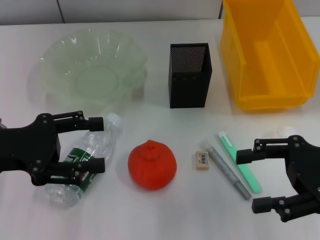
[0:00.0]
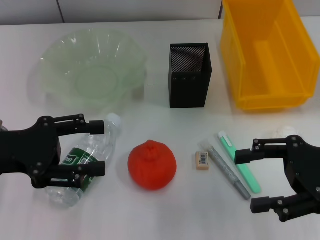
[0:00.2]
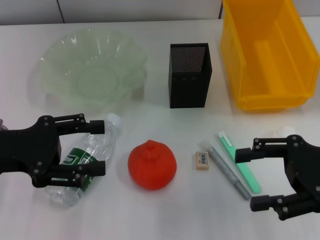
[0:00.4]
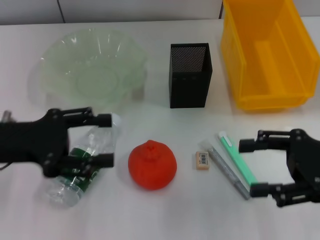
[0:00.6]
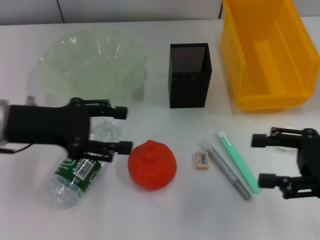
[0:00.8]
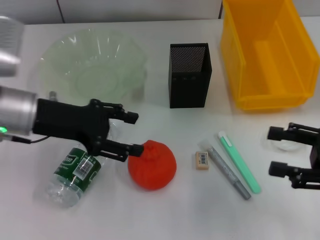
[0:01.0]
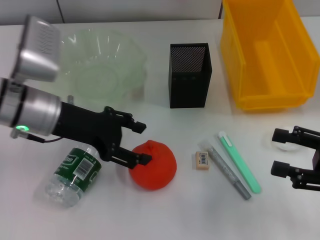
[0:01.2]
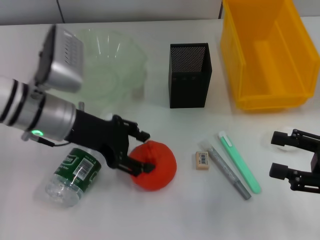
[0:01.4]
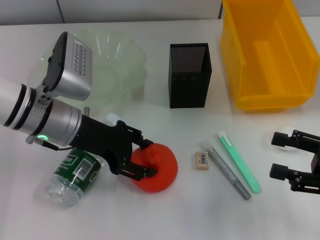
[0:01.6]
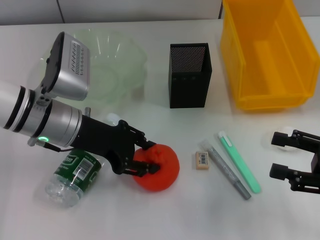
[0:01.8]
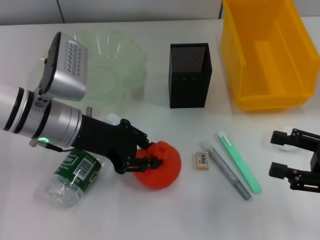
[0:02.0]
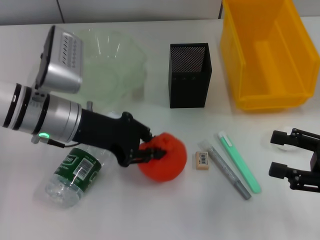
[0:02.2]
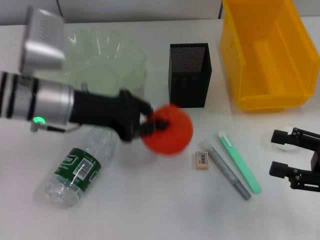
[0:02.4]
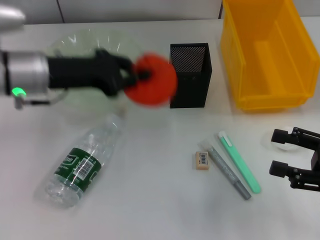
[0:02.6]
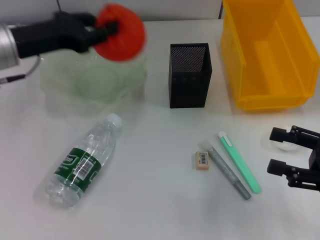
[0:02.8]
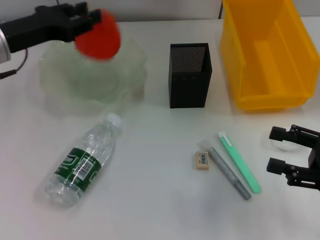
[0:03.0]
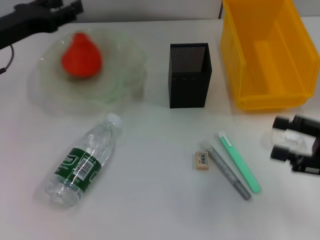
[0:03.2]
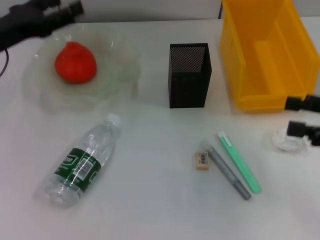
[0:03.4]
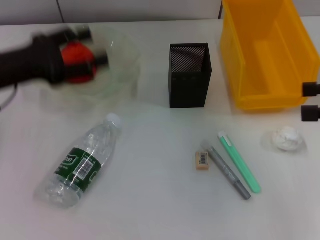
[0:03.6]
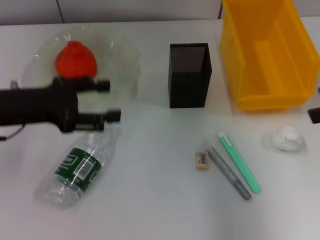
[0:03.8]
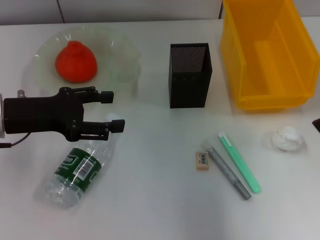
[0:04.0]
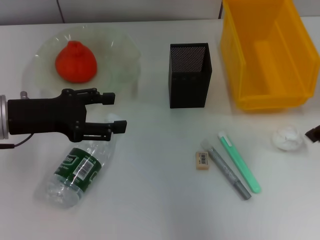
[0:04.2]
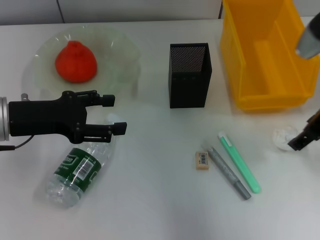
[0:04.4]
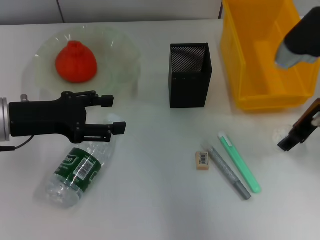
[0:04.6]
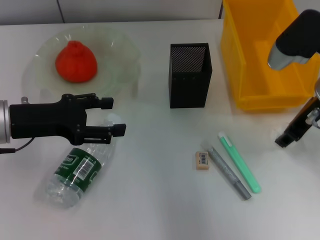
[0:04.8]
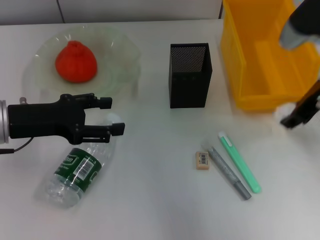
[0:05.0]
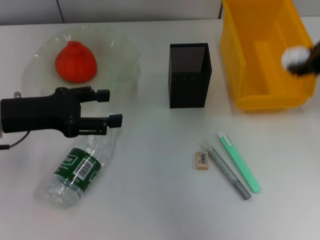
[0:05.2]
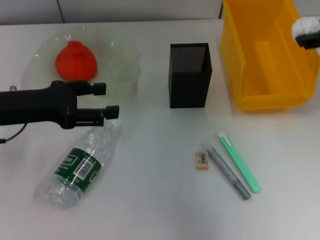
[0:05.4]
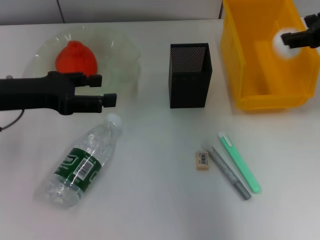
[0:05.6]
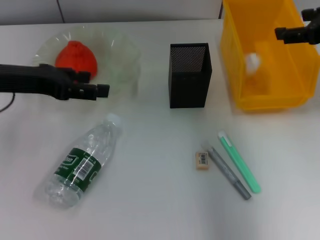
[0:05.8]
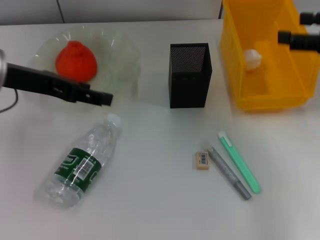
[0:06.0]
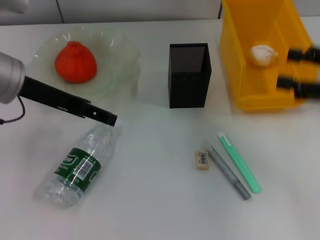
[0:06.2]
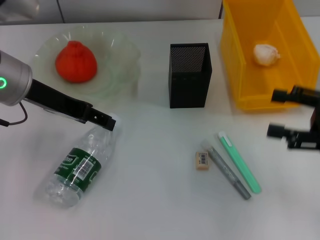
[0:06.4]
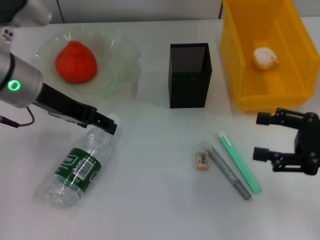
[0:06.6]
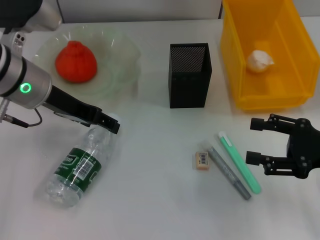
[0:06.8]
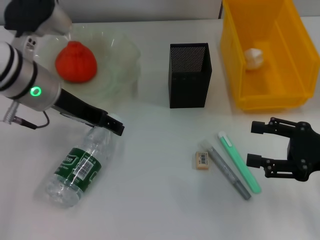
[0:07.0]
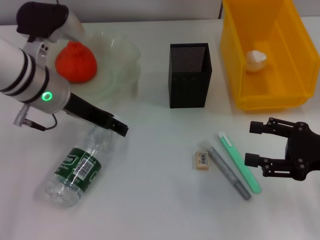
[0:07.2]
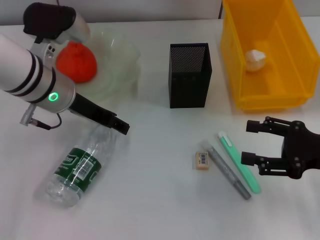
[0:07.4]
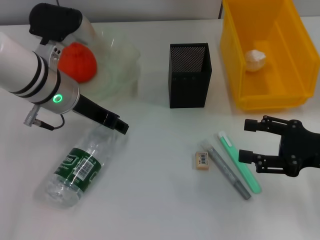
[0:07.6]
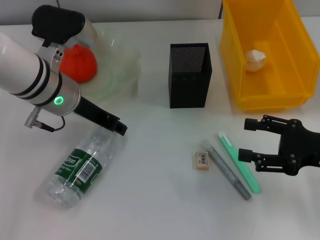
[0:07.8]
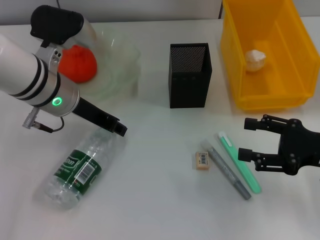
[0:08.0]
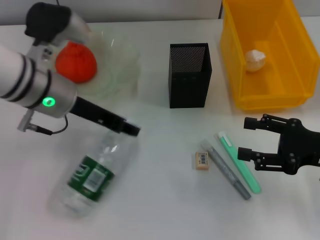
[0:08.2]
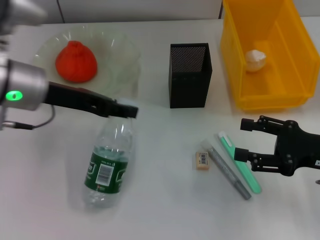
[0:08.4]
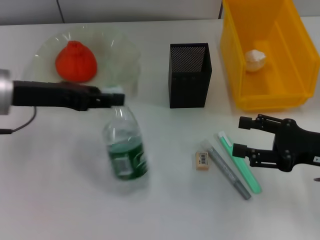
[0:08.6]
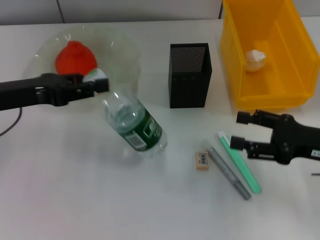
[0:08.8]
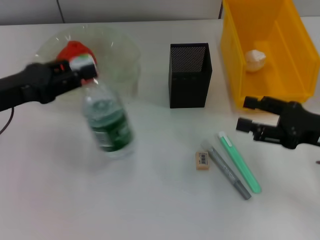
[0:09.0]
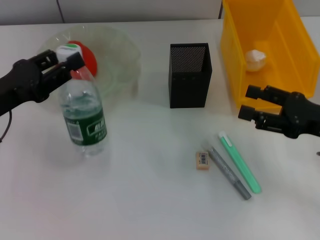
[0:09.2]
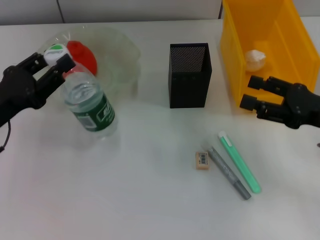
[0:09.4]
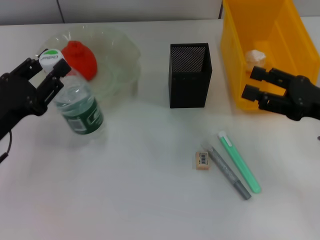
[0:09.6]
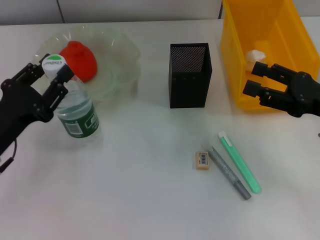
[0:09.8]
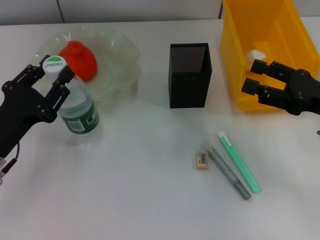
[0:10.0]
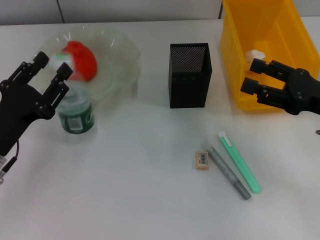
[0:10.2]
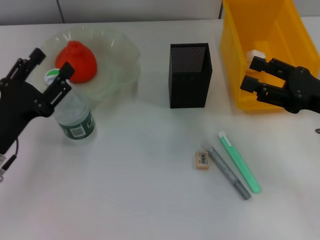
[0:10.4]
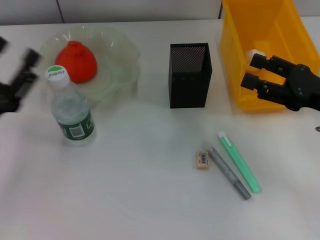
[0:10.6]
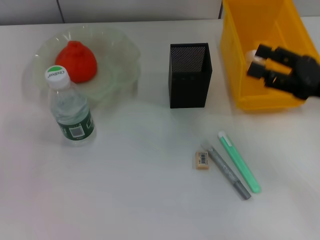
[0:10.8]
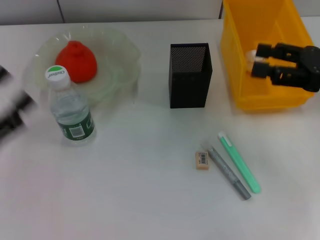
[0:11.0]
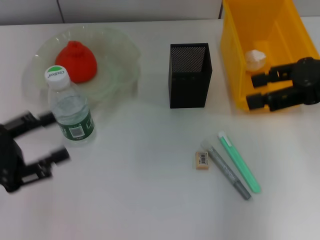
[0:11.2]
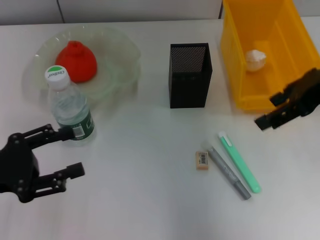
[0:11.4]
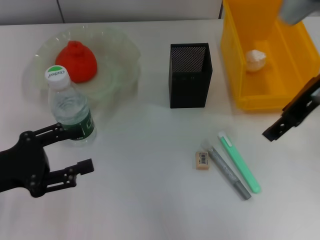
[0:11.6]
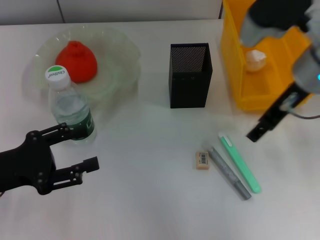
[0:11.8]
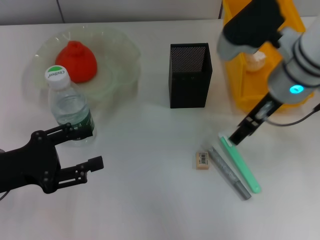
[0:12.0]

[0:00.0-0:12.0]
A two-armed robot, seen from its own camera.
Step, 0:00.0 to 0:01.8: Grab the orange with the left hand.
Step, 0:02.2 to 0:03.0: Place the orange into the fruit bowl with the left hand.
Step, 0:03.2 to 0:04.6: Grab the paper ball with the right hand.
Step, 0:04.8 to 0:05.6: Place the paper ball into the trash can with the right hand.
Step, 0:05.8 to 0:07.8: Grab the water bottle with the left hand.
Step, 0:08.0 to 0:10.2: Place the water bottle on the table with the left hand.
0:00.0 to 0:01.6: The right gripper ends up about 5 cm from where it was, while the left gripper heads to the right and forward, covering roughly 15 cm.
0:01.6 to 0:03.0: The left gripper travels to the left by approximately 10 cm, and closes its fingers.
0:03.0 to 0:04.4: The left gripper goes about 5 cm backward, and opens up. The right gripper goes some 20 cm forward, upward and to the left.
0:04.4 to 0:06.0: The right gripper goes some 10 cm to the right, reaches about 10 cm upward, then returns, and closes and opens again; the left gripper is displaced upward by some 10 cm.
0:06.0 to 0:07.6: The left gripper goes some 10 cm to the right and downward; the right gripper moves downward and backward, some 15 cm.
0:07.6 to 0:09.0: The left gripper is displaced to the left and backward by some 15 cm, and closes its fingers.
0:09.0 to 0:10.4: The left gripper goes some 10 cm downward and backward.
0:10.4 to 0:12.0: The right gripper moves to the left, upward and forward, some 15 cm.

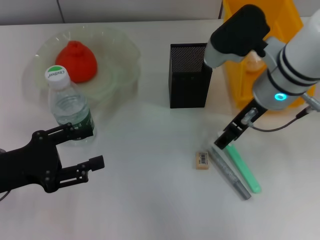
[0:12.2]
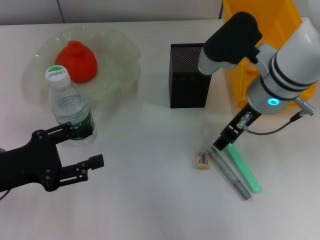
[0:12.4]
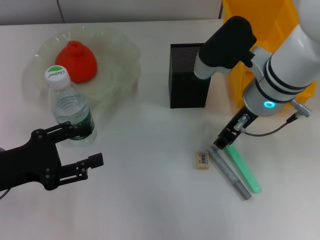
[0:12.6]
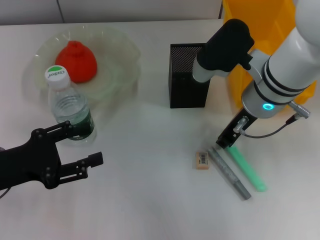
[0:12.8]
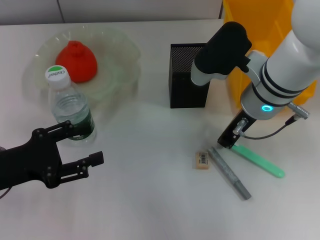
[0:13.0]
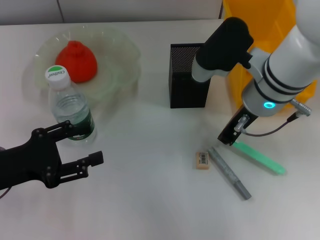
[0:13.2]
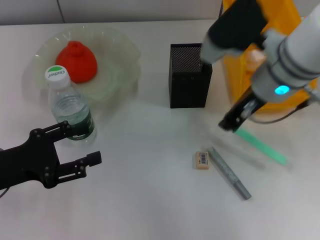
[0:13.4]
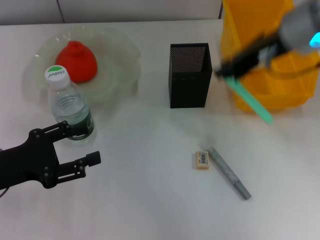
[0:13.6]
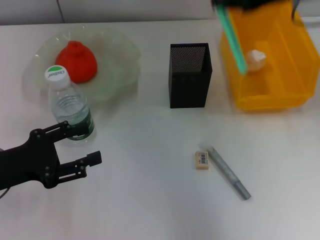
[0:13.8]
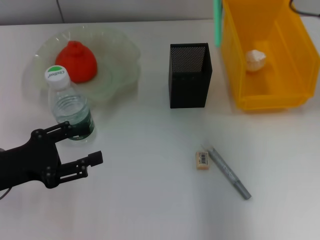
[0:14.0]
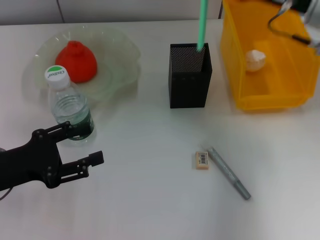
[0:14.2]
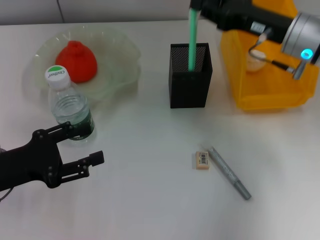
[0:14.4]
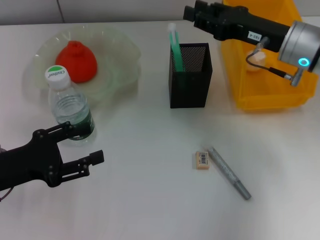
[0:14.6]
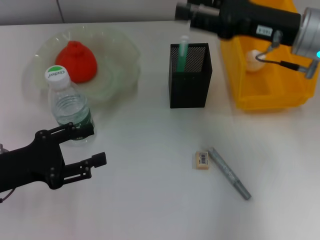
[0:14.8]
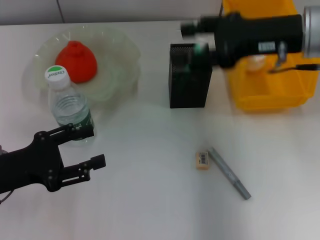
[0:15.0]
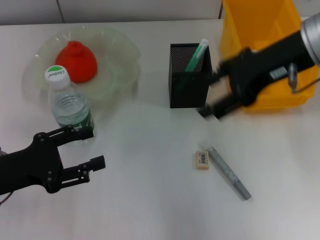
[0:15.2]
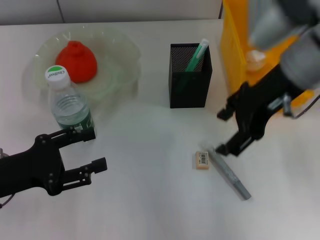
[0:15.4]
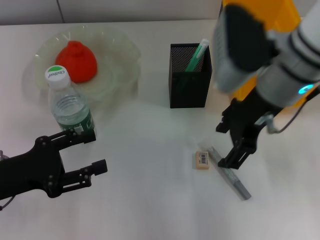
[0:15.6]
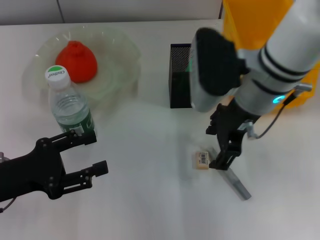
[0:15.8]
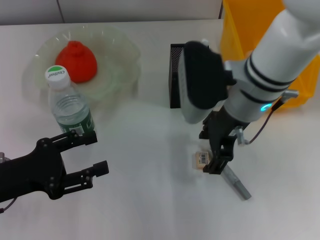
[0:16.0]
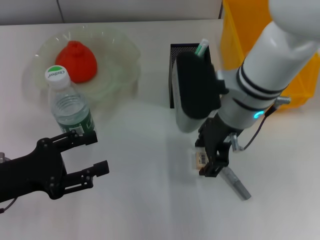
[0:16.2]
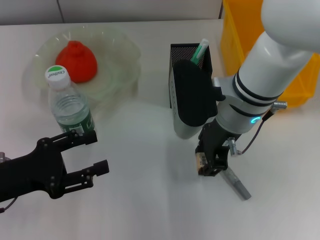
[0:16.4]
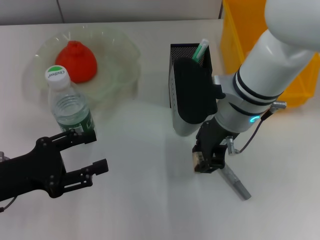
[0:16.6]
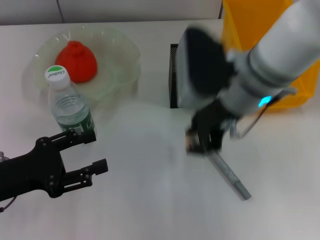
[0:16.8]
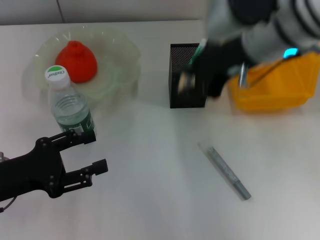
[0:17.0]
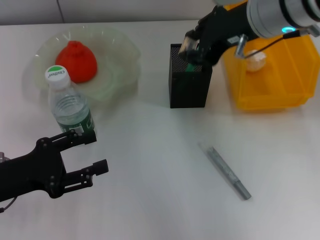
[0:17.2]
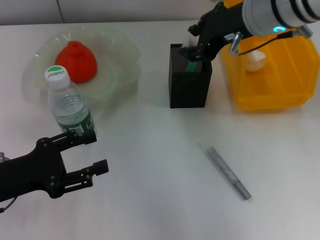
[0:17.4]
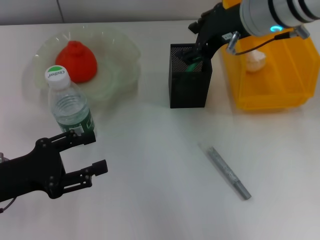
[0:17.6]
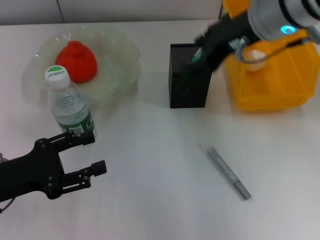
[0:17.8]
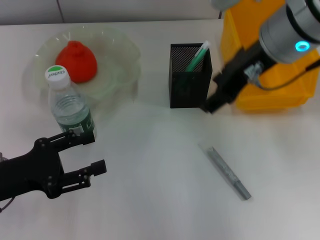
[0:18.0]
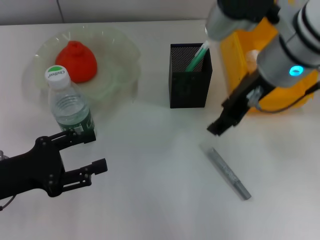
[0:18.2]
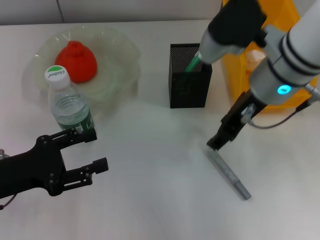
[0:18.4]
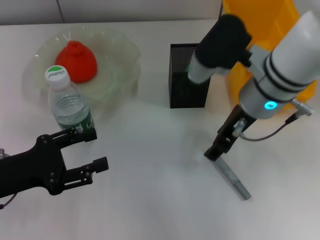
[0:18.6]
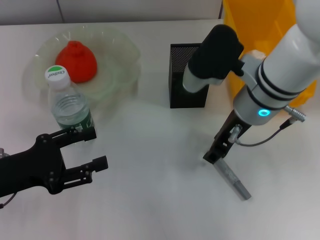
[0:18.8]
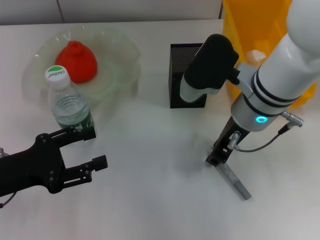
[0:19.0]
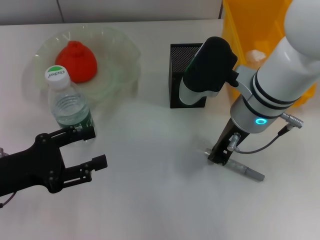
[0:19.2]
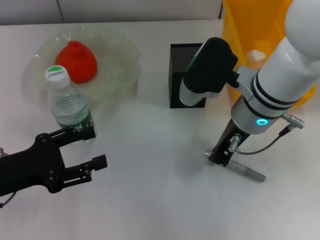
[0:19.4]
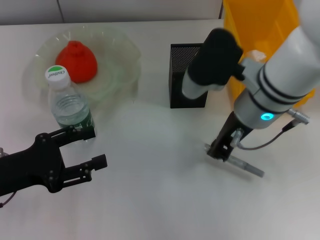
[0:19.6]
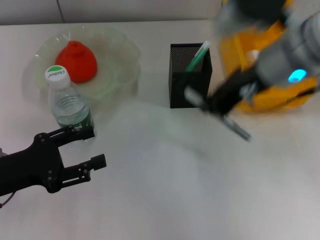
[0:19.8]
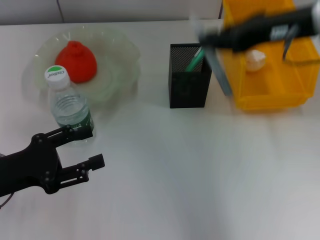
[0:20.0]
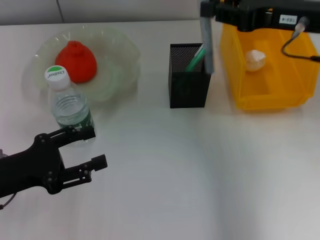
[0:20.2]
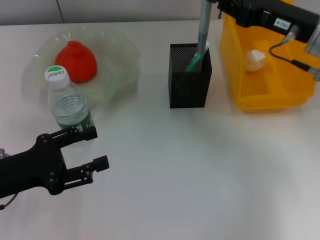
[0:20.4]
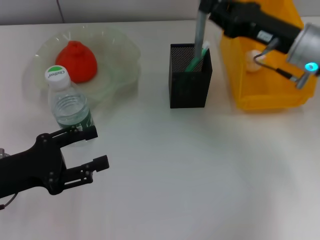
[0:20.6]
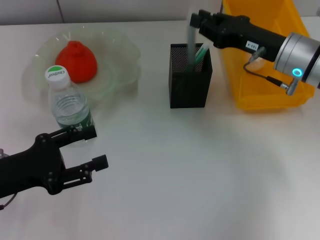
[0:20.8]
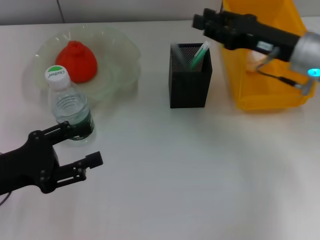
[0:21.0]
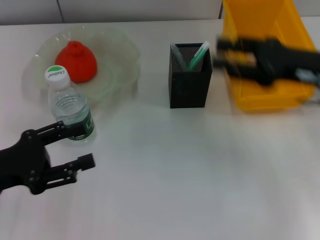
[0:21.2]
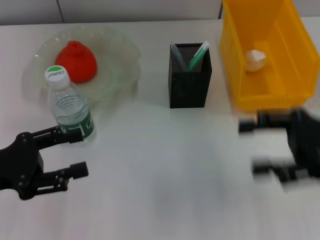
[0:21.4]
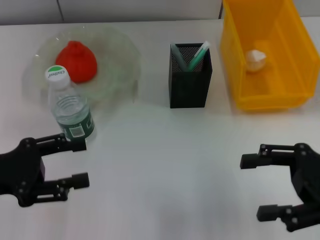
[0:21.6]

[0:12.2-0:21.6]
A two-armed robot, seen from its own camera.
Step, 0:13.0 to 0:14.4: Place the blue utility knife into the pen holder with the right hand.
Step, 0:14.8 to 0:16.4: Grab the eraser with the right hand.
Step, 0:16.6 to 0:17.4: Put the eraser into the pen holder with the right hand.
Step, 0:17.6 to 0:19.2: Grab the gray glue with the right hand.
Step, 0:19.4 to 0:20.8: Place the gray glue into the pen holder with the right hand.
0:12.2 to 0:13.8: The right gripper moves upward and to the right, approximately 15 cm, and closes up.
0:13.8 to 0:15.4: The right gripper moves downward and to the left, roughly 10 cm, and opens its fingers.
0:15.4 to 0:17.0: The right gripper moves about 10 cm downward and comes back, and closes its fingers.
0:17.0 to 0:18.4: The right gripper moves downward, some 5 cm, and opens.
0:18.4 to 0:20.0: The right gripper goes approximately 10 cm to the right and upward, and closes its fingers.
0:20.0 to 0:21.6: The right gripper goes roughly 20 cm downward, backward and to the right, and opens its fingers.
